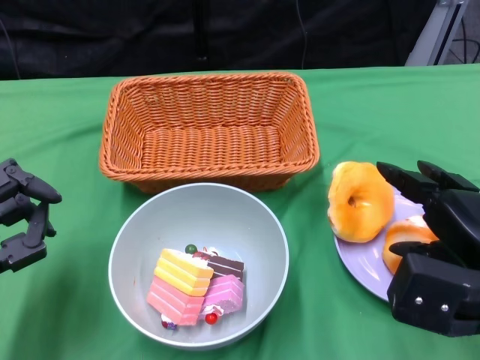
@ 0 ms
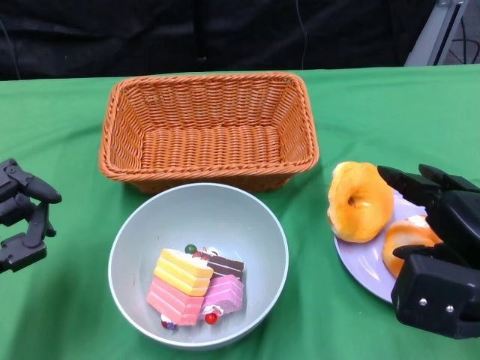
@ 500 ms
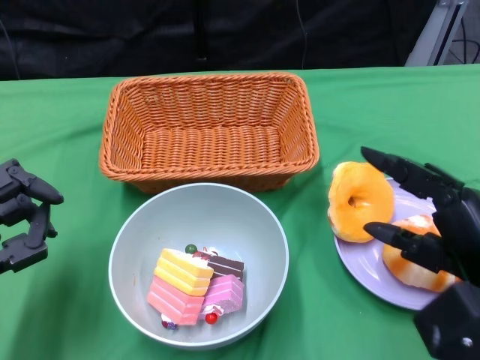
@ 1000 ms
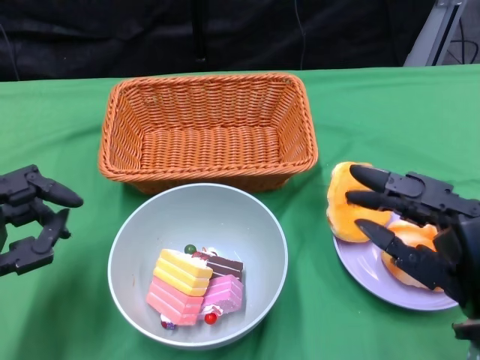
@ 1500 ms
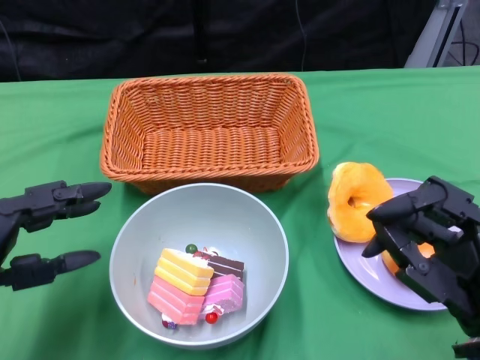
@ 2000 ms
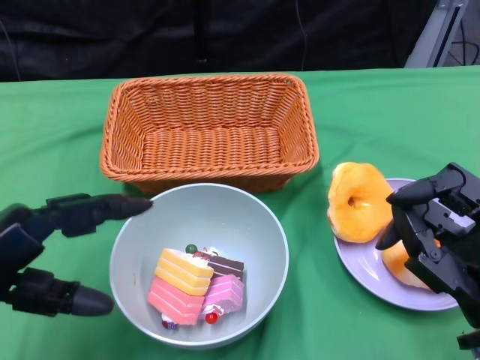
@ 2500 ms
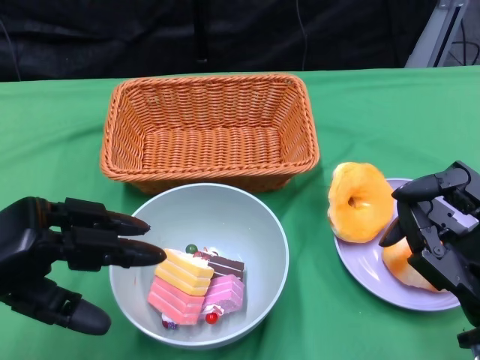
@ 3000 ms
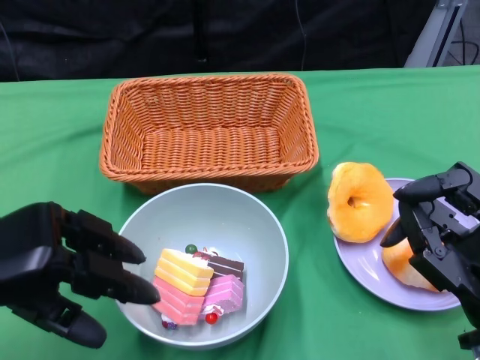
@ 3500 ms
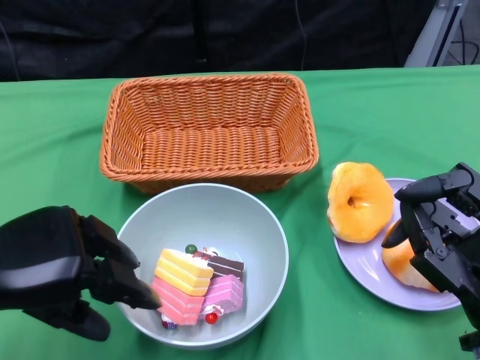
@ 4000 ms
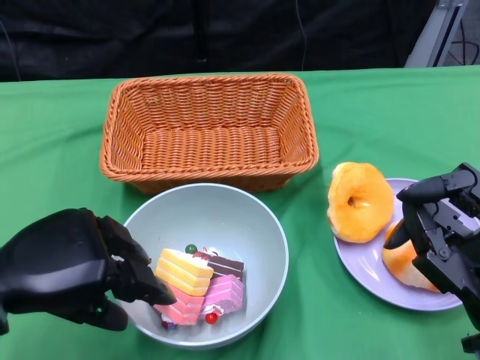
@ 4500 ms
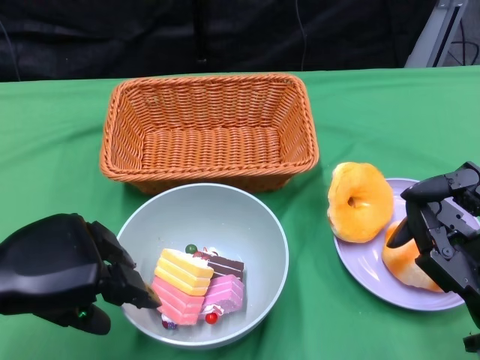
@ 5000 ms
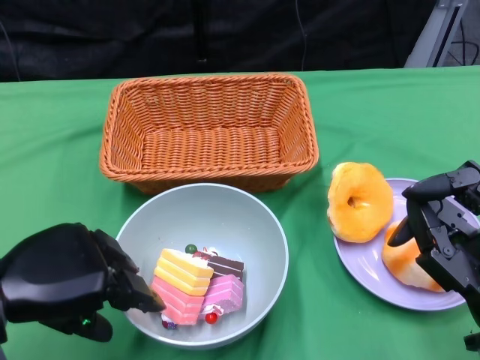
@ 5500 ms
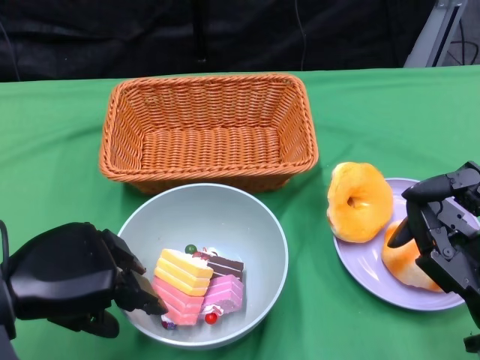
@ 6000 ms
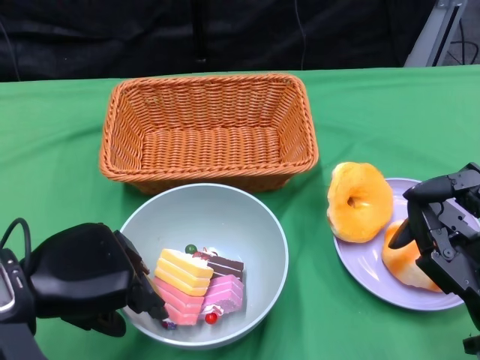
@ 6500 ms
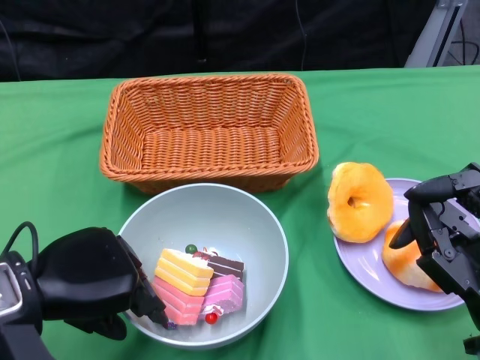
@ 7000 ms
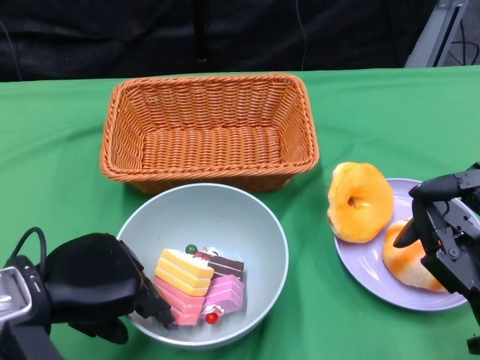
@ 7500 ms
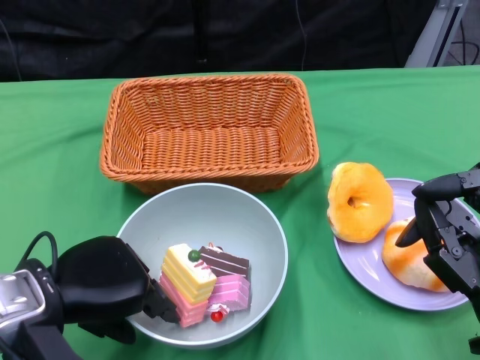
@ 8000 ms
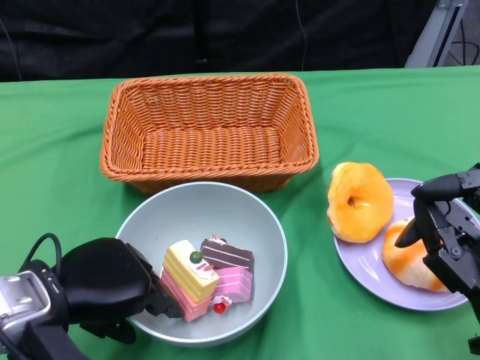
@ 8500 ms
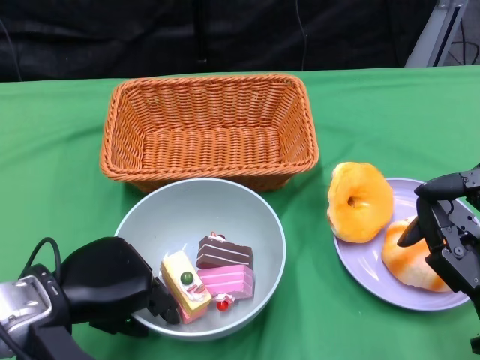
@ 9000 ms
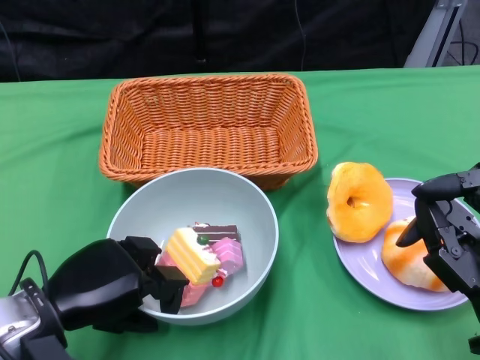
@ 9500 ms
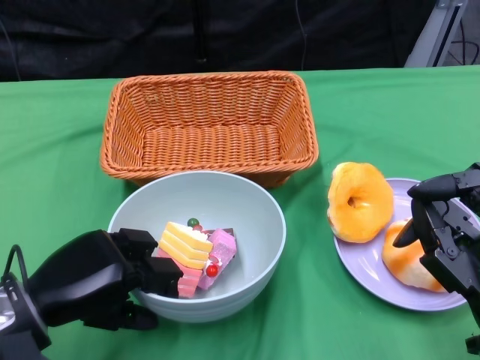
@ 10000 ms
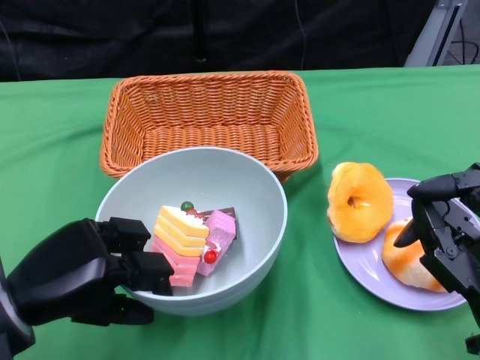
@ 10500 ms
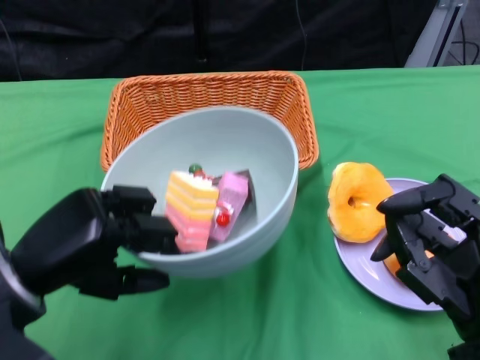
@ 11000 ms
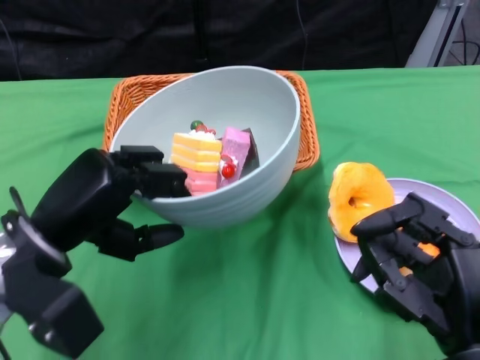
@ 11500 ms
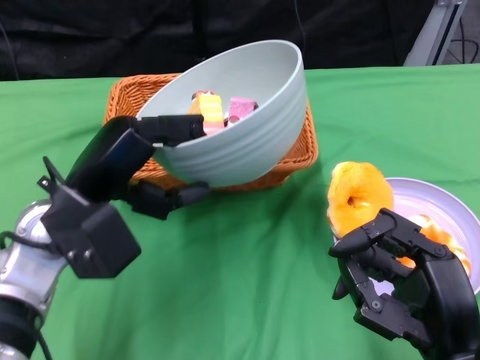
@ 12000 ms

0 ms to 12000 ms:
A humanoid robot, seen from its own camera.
Step, 1000 ms to 9000 ms: Grasp the bowl with the left gripper.
0 ms to 2000 ms: The right hand goes approximately 5 cm backward.
2000 ms to 4000 ms: The left hand goes about 5 cm upward.
4000 ms to 6000 ms: The hands move only a little.
6000 ms to 8000 ms: The hands make only small movements.
10000 ms to 12000 ms: The left hand travels forward and upward by about 10 cm.

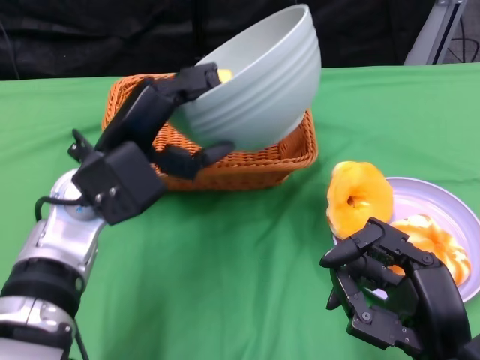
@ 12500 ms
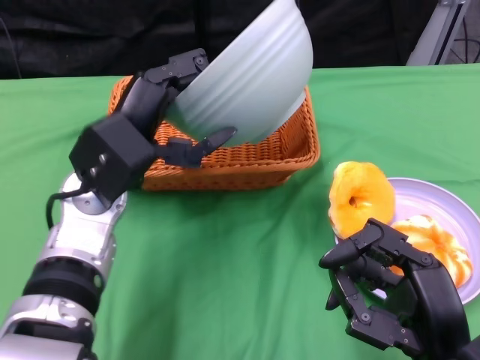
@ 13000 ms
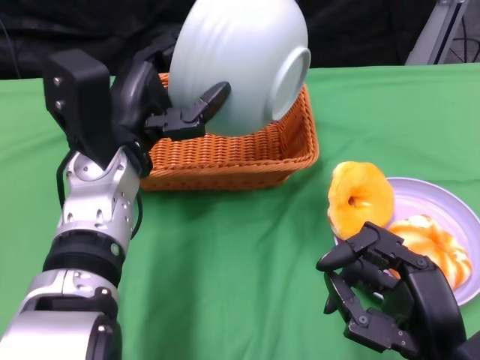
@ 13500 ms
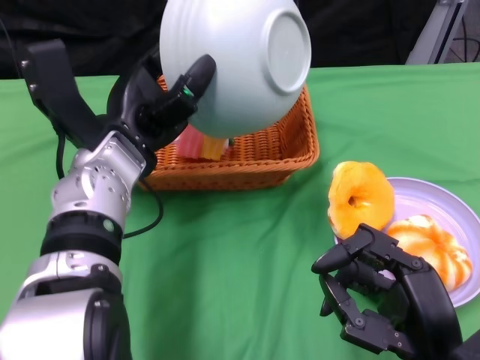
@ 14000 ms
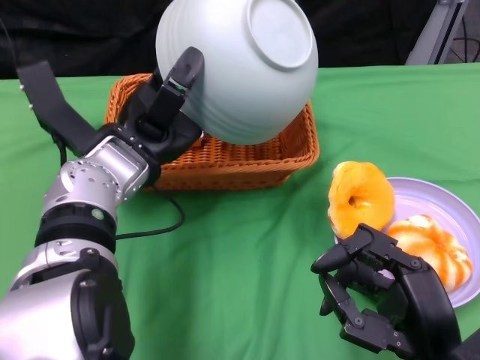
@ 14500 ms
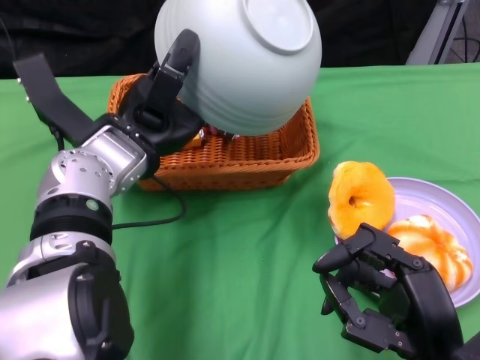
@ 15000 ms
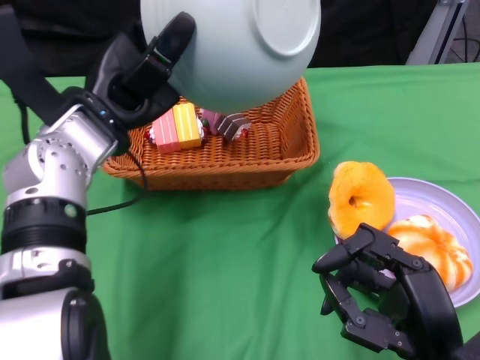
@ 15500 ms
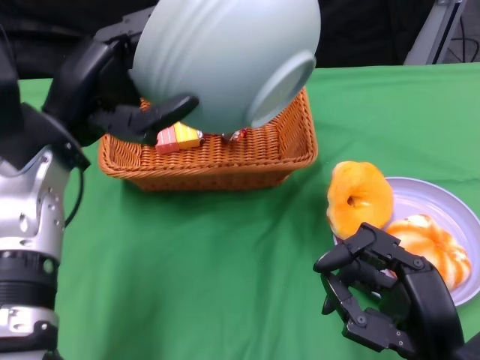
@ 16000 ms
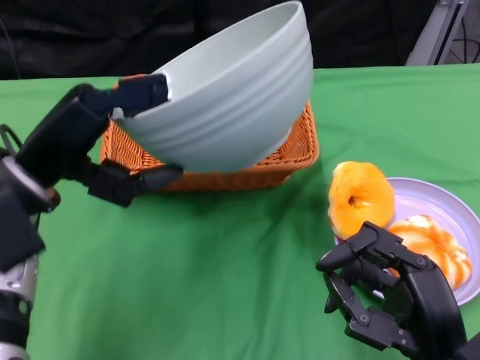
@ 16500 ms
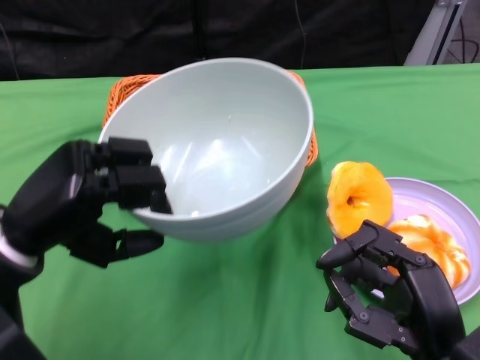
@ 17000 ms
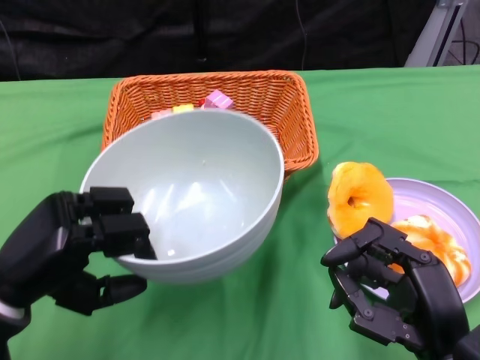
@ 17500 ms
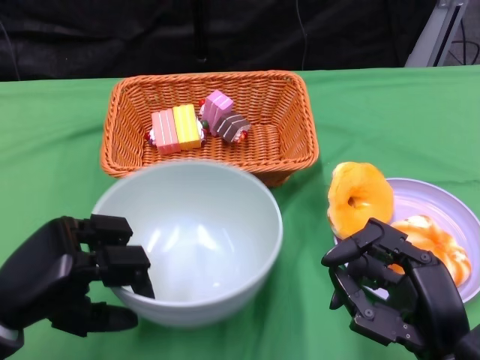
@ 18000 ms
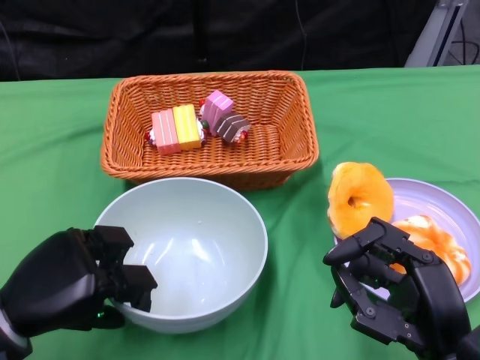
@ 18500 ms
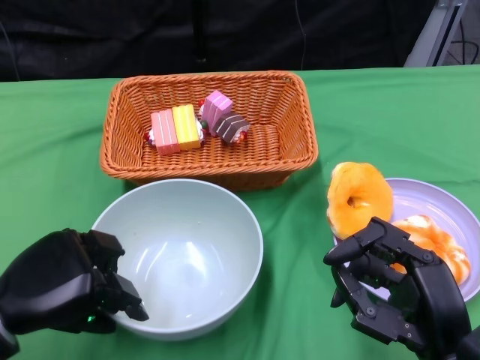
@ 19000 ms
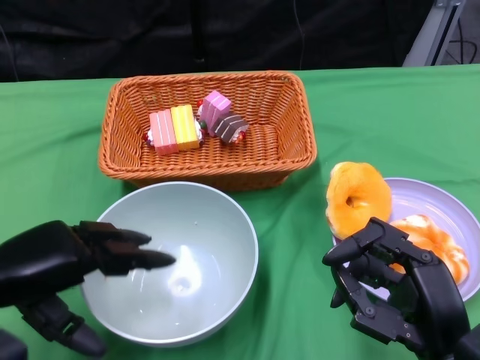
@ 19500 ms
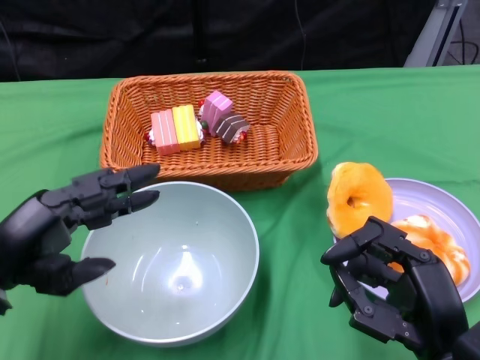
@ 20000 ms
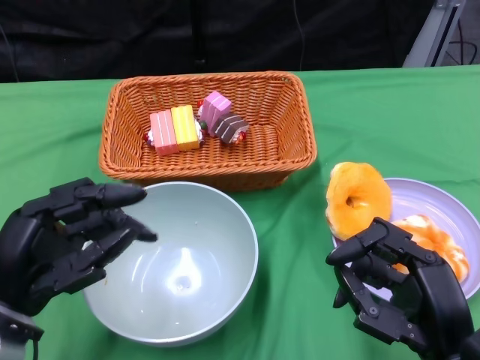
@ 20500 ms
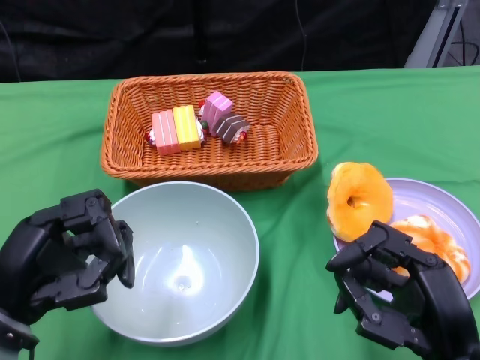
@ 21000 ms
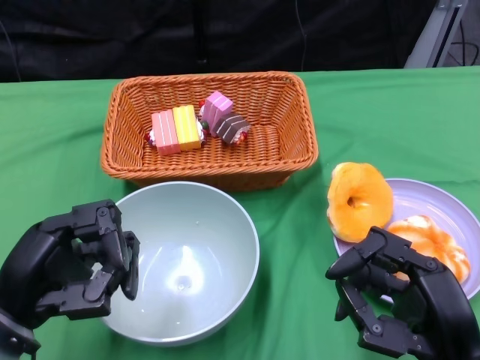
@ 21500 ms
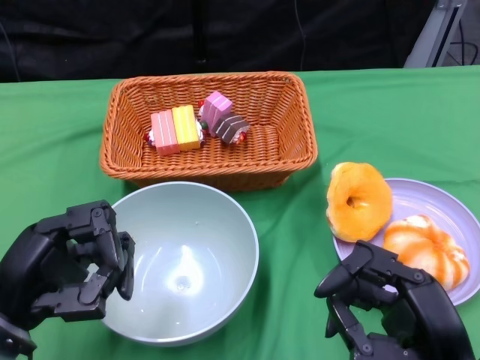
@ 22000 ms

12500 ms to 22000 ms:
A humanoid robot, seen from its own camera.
Step, 12500 ms to 15500 ms: Pour the cake into the basket with the left gripper.
Step, 16000 ms to 19000 ms: Place the bowl on the table with the left gripper.
14500 ms to 16500 ms: The left hand travels to the left and backward by roughly 10 cm.
16500 ms to 18000 ms: The left hand travels downward and backward by some 10 cm.

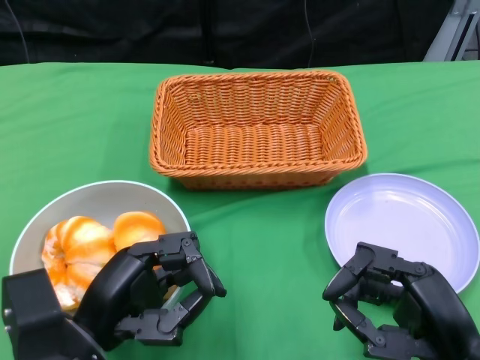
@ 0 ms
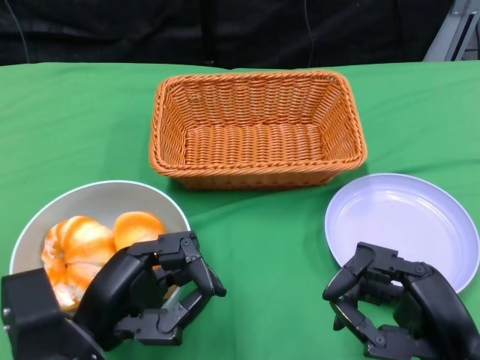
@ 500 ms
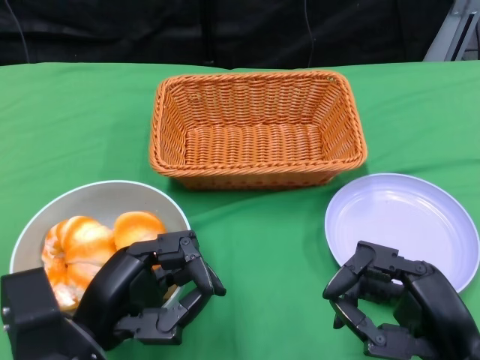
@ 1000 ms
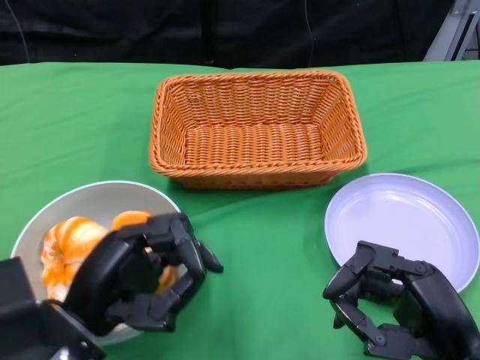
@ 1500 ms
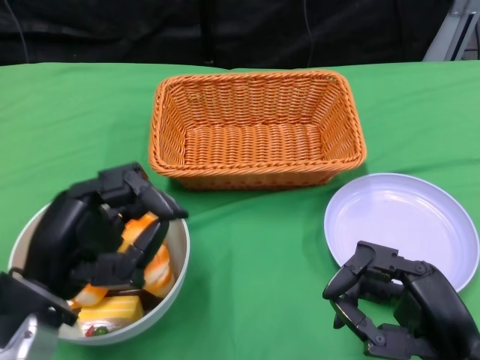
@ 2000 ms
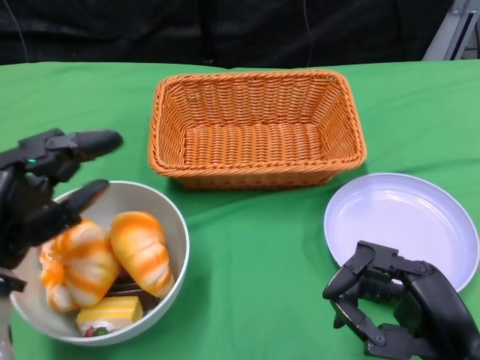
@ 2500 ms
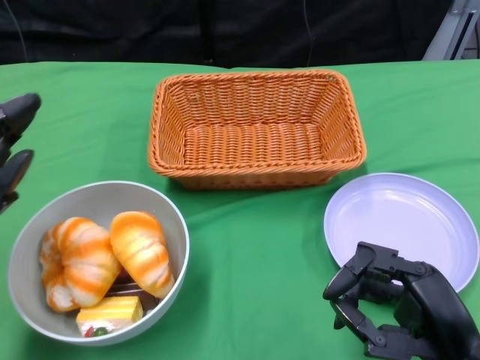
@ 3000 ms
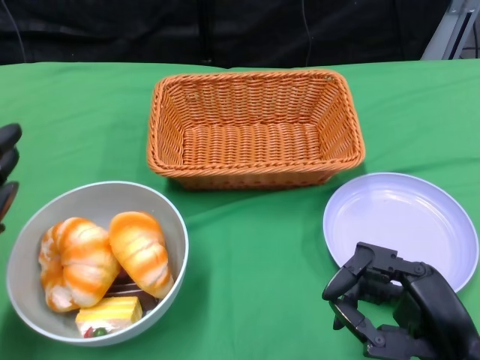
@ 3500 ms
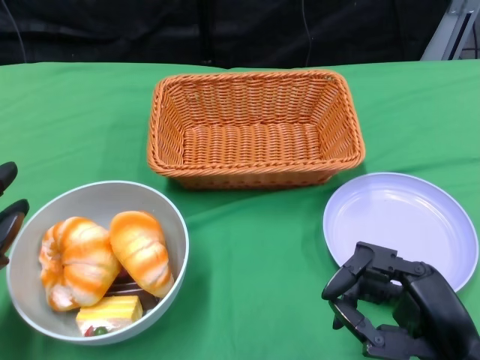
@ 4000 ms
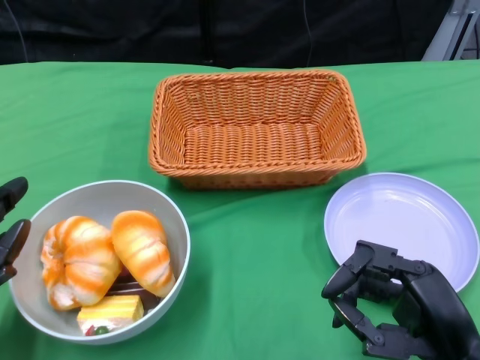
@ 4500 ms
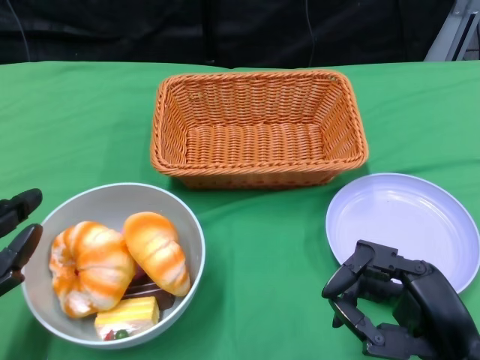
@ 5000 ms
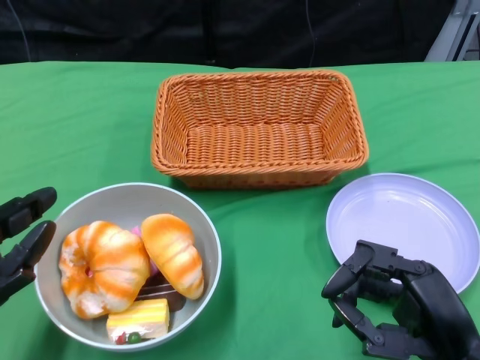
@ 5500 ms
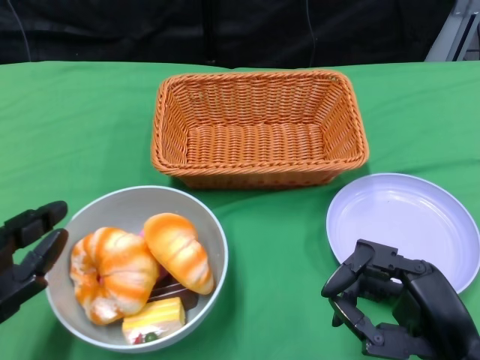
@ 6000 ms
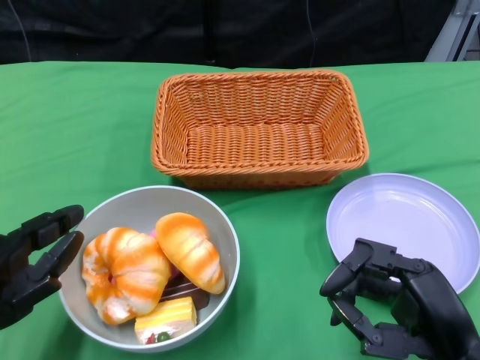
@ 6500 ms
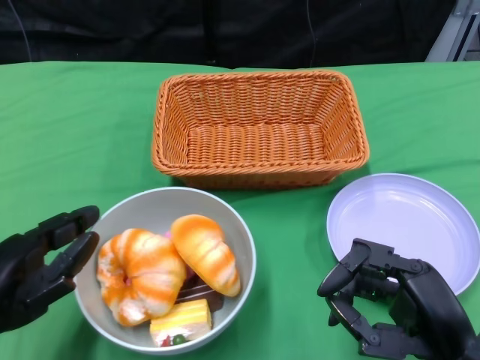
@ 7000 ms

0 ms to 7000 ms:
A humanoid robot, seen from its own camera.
2000 ms to 3500 ms: The left hand heads to the left, covering approximately 10 cm.
